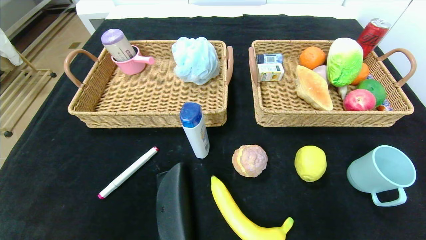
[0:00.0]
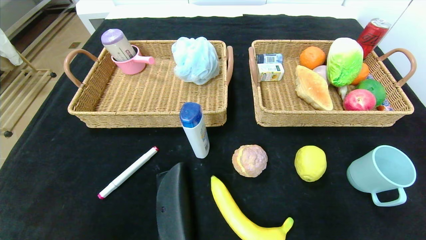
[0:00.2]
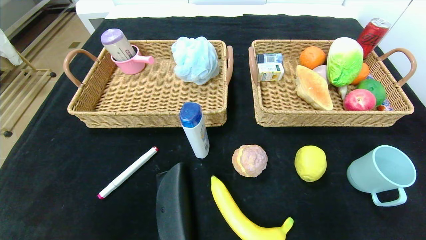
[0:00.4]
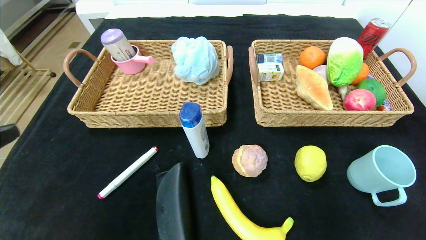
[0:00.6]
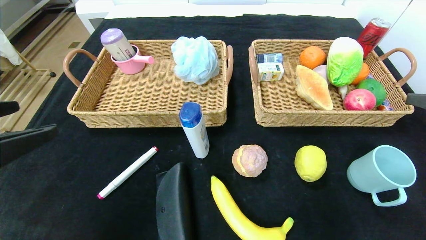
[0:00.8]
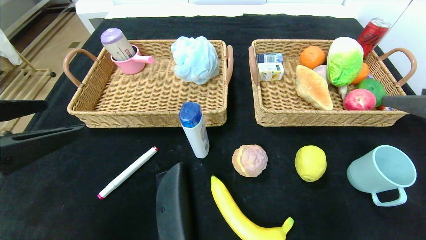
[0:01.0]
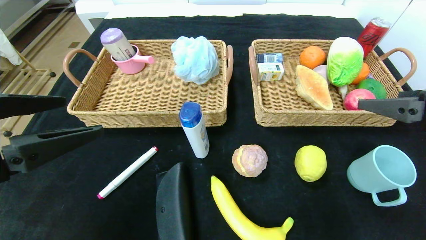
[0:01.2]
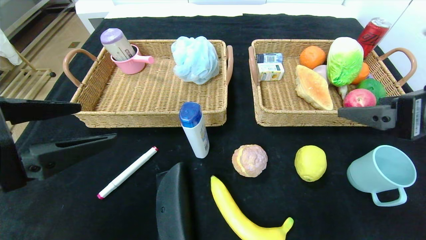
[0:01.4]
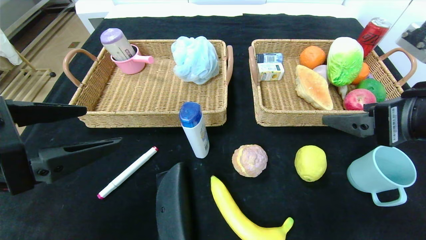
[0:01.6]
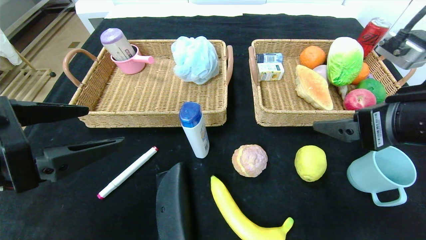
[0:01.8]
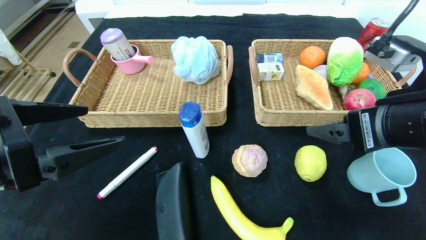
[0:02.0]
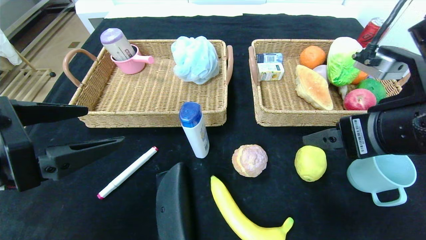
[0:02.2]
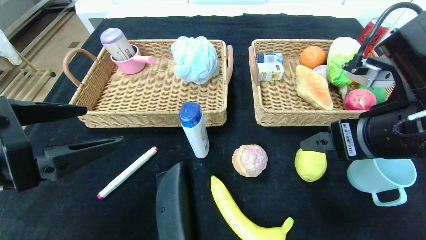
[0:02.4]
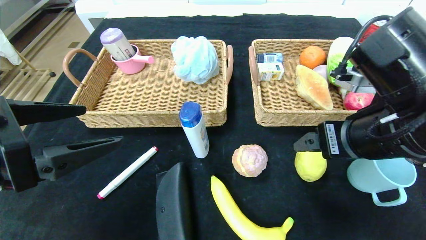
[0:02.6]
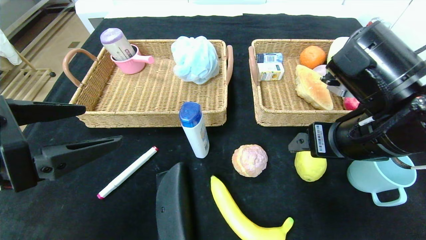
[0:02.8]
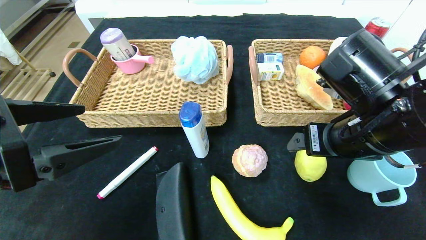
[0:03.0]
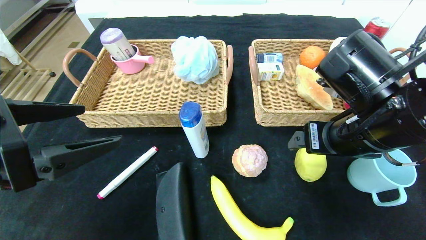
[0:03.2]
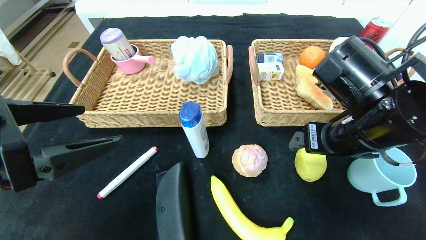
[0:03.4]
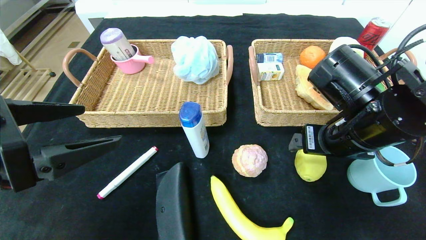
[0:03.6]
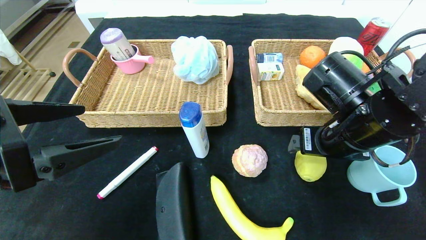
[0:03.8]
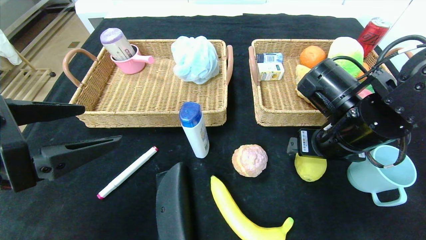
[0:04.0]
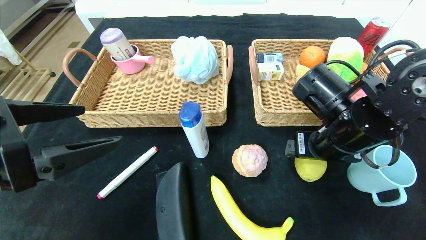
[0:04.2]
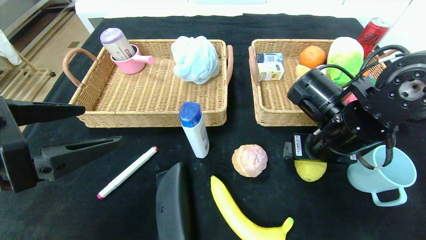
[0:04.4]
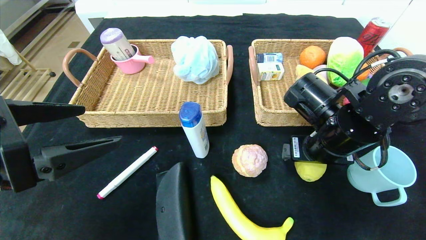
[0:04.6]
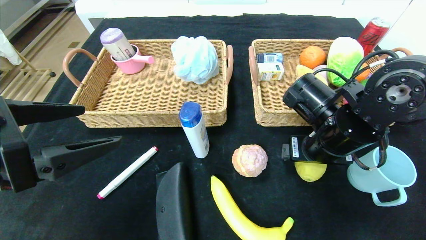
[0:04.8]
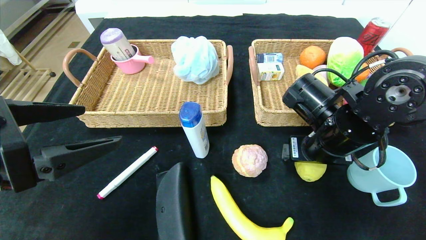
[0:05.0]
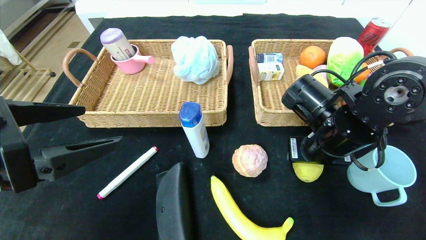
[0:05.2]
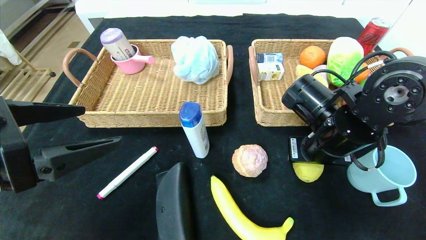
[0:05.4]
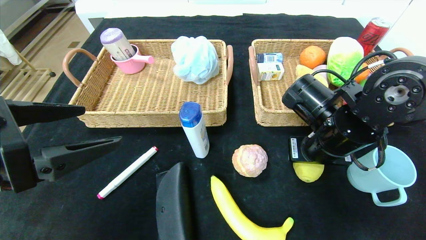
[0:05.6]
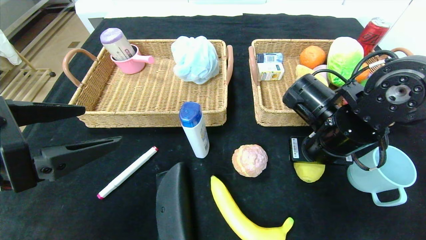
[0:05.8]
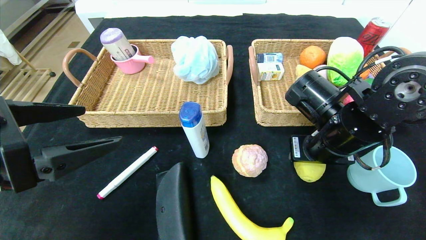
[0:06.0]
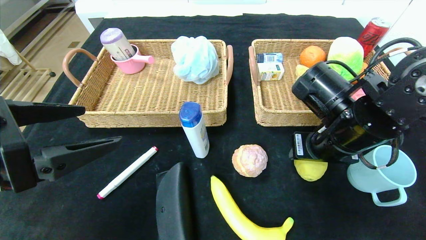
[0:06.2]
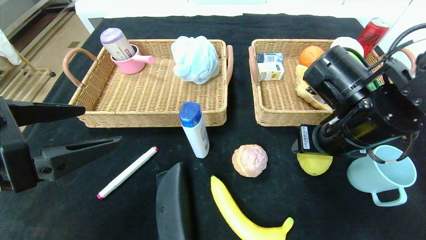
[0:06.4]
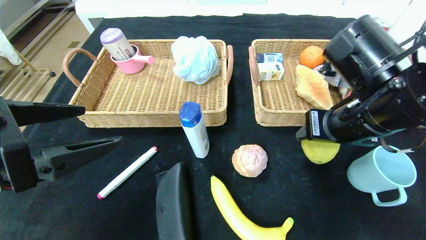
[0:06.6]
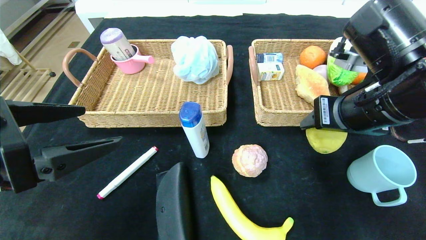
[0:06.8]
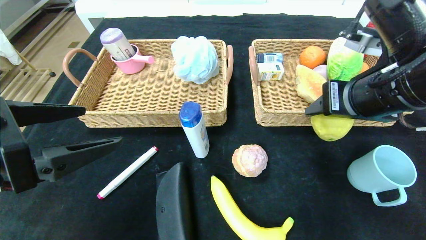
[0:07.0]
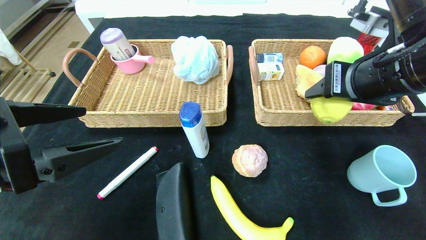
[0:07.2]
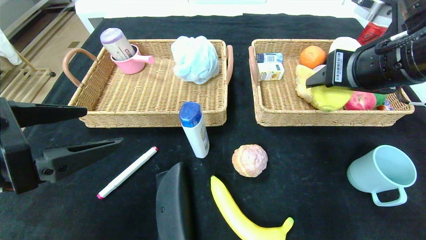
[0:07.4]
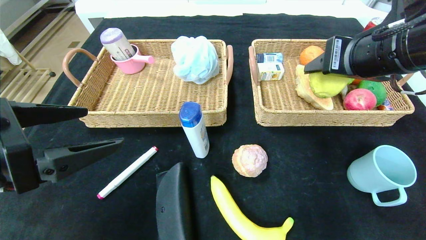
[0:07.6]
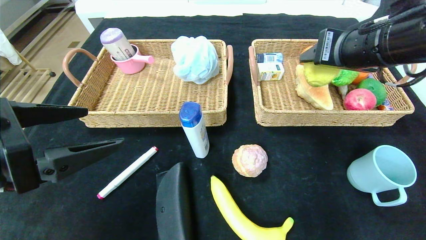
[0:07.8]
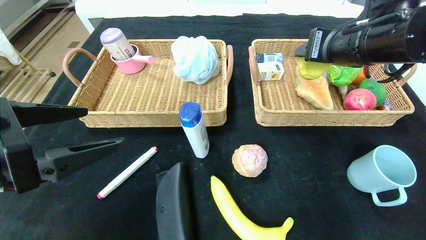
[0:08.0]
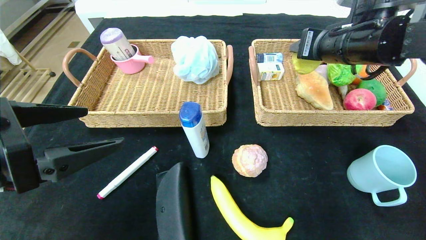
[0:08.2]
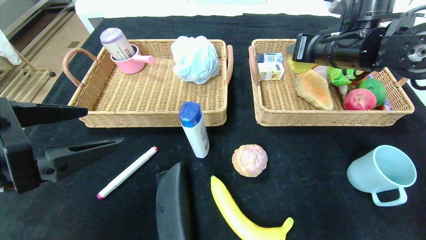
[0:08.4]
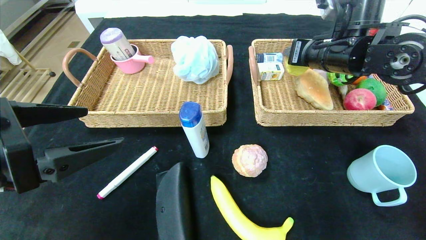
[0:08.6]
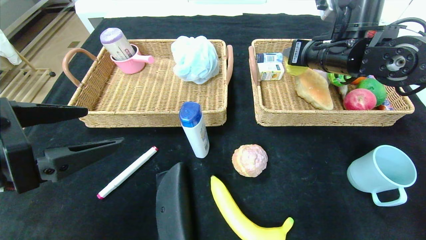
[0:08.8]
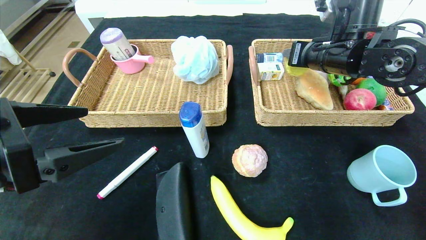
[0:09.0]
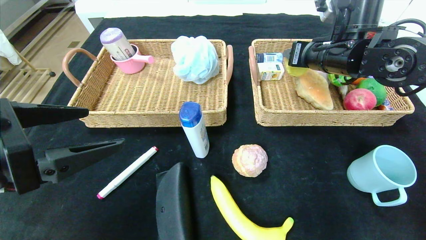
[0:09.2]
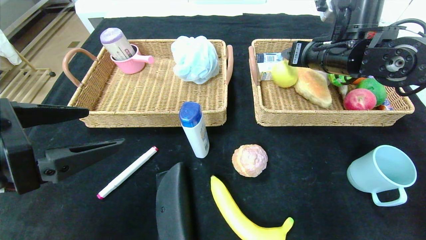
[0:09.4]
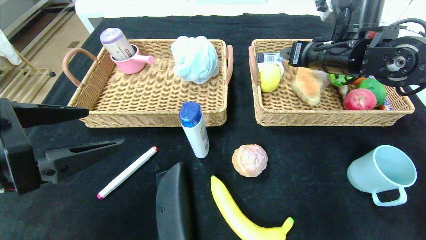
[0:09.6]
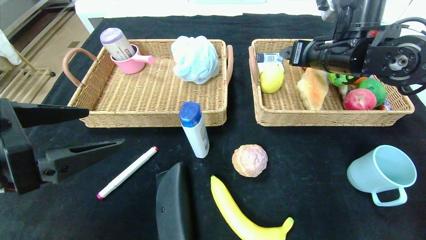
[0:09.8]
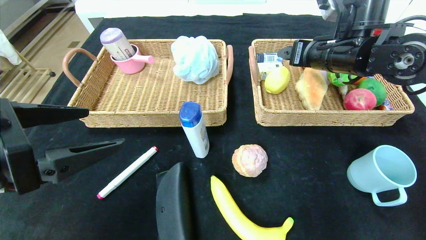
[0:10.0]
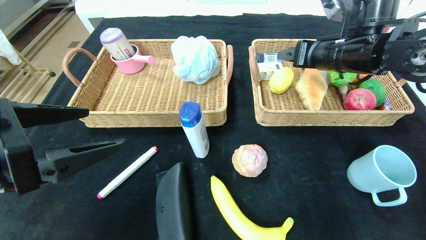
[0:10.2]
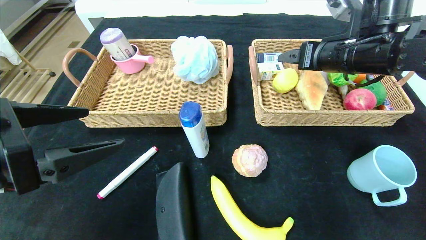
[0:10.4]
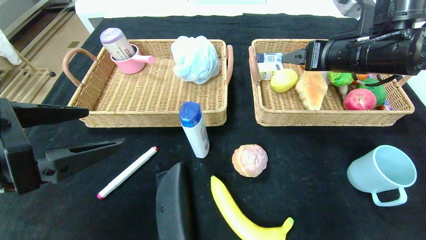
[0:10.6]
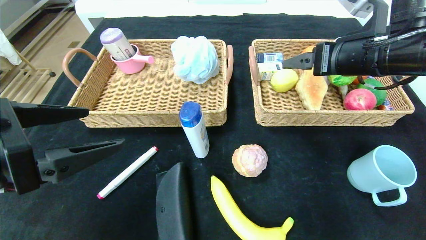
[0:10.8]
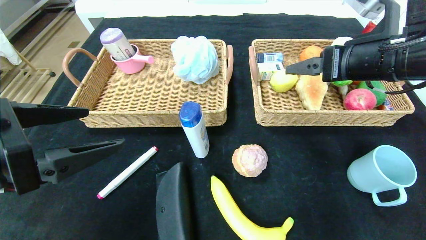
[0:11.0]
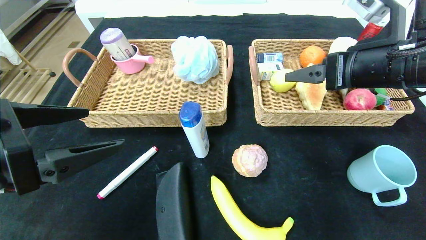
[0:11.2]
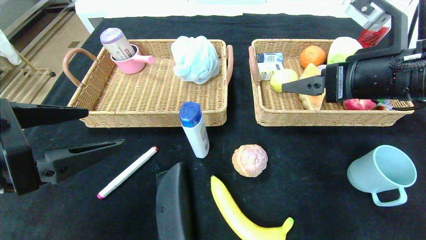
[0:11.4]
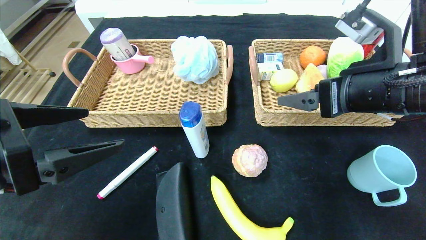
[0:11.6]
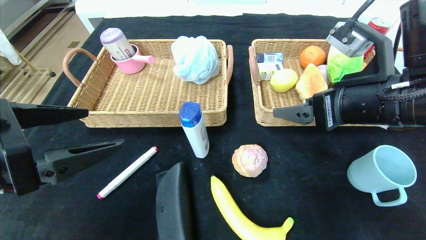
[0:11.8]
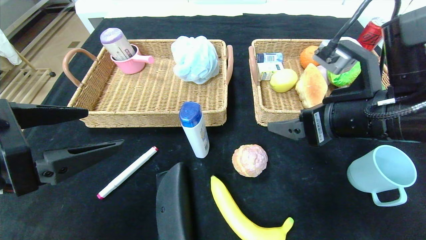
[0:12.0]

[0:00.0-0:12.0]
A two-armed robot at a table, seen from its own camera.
Step, 0:00.0 to 0:10.6: Grasp the lemon and put it in the right basket.
0:00.0 to 0:01.6: The right gripper goes roughly 20 cm forward and to the left. The left gripper shifts approximately 15 cm forward and upward.
0:01.6 to 0:03.0: The right gripper shifts approximately 5 cm to the left.
0:03.0 to 0:04.4: The right gripper shifts by roughly 5 cm.
0:04.4 to 0:06.0: The right gripper closes its fingers.
0:06.0 to 0:07.6: The right gripper shifts some 15 cm upward.
0:07.6 to 0:09.0: The right gripper is displaced forward by roughly 10 cm.
0:09.0 to 0:10.4: The right gripper opens.
0:10.4 to 0:12.0: The right gripper heads backward, covering about 10 cm.

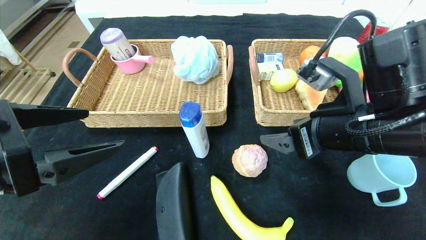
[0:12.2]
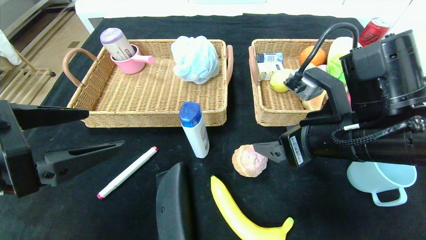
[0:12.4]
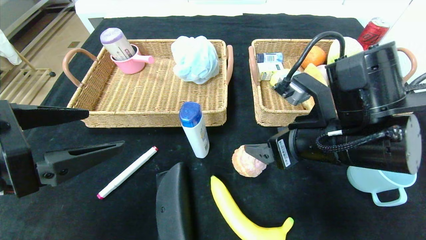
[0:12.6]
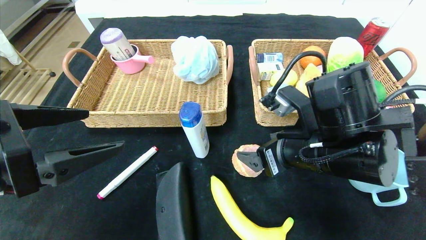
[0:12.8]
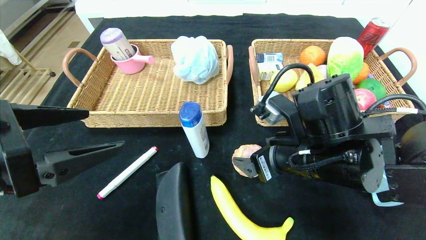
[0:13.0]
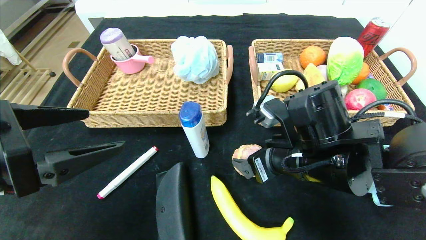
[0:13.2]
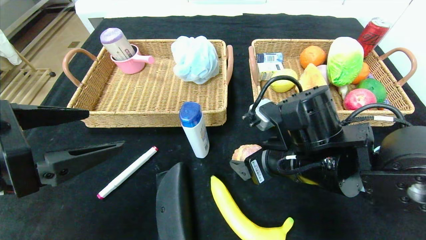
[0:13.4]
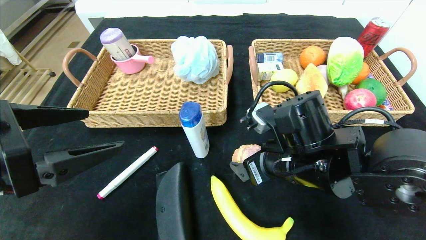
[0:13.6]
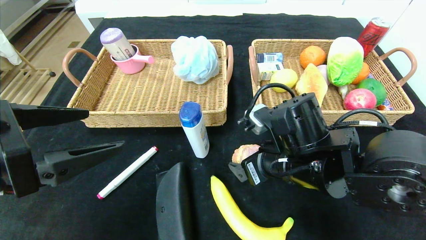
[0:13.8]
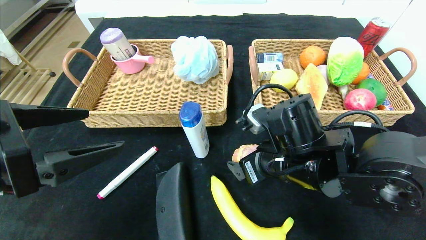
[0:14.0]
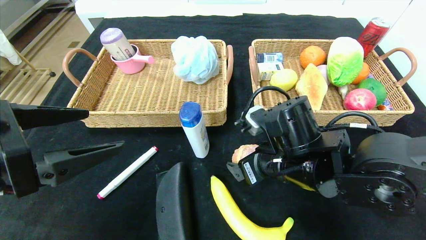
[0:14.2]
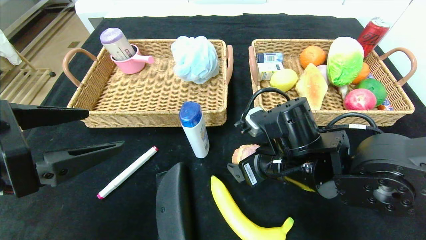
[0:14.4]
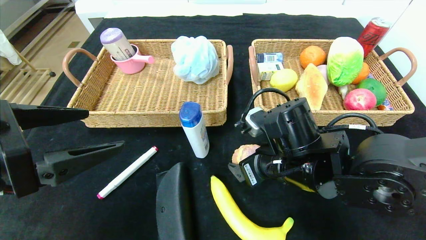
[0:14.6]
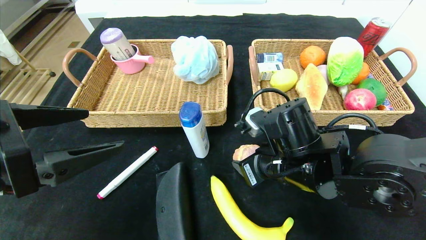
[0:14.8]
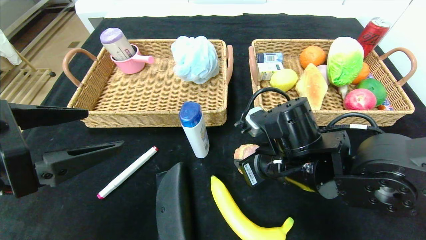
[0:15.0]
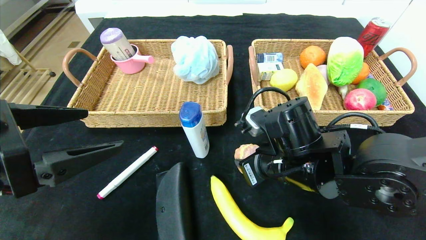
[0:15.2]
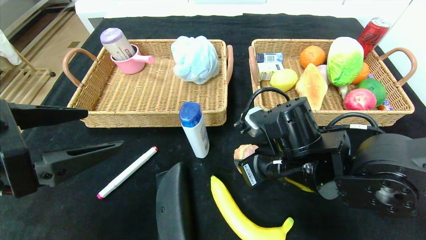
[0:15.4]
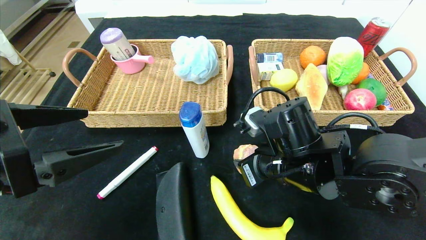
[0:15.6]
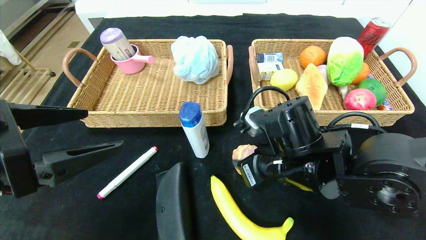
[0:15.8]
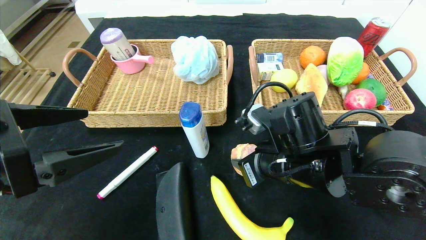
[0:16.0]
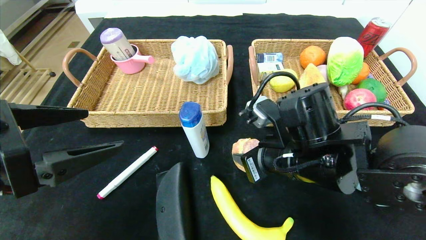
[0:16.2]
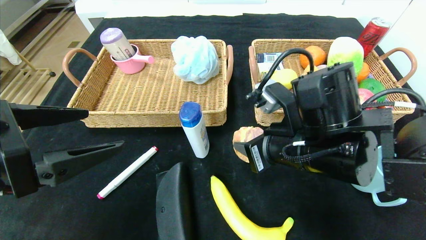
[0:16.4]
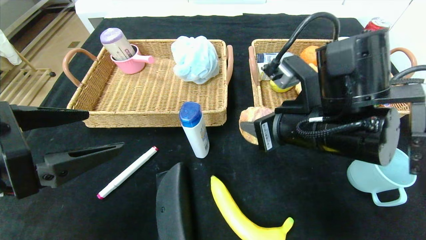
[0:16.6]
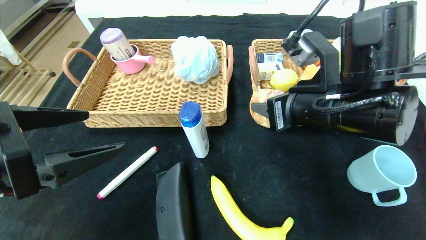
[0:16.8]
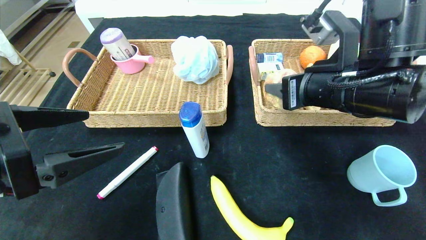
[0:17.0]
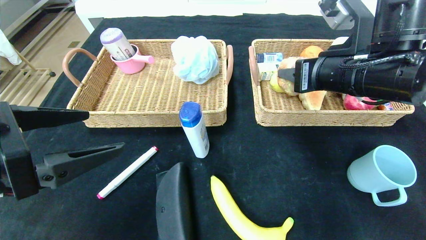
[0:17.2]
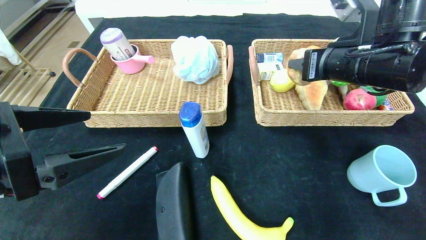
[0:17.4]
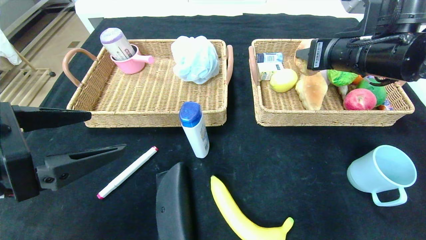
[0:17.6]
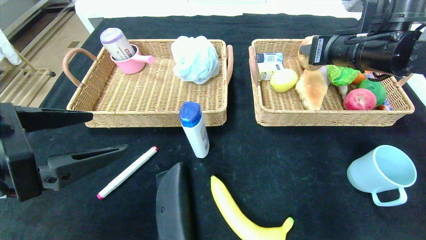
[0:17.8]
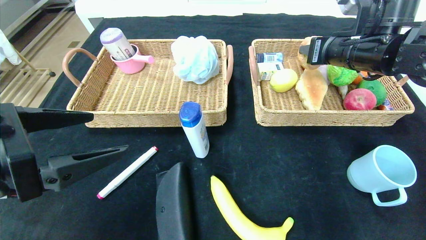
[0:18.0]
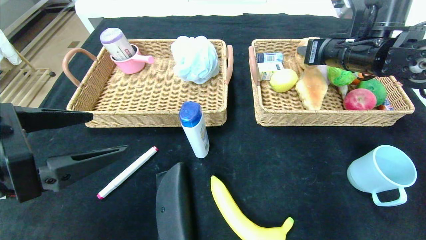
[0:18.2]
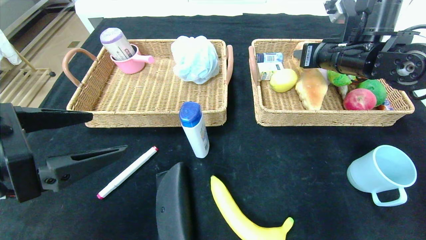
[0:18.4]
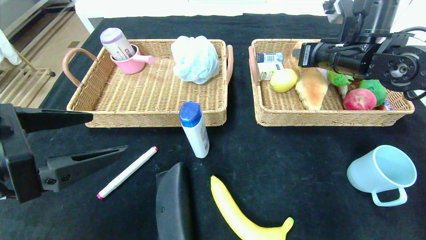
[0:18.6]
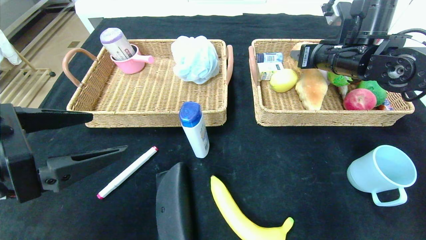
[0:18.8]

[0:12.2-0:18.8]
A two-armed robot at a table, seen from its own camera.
0:12.2 to 0:13.8: The right gripper goes approximately 10 cm downward and to the left.
0:13.8 to 0:15.4: The right gripper closes up.
0:15.4 to 0:17.2: The right gripper moves upward and to the right, some 15 cm.
0:17.2 to 0:18.8: The right gripper travels forward by approximately 10 cm.
